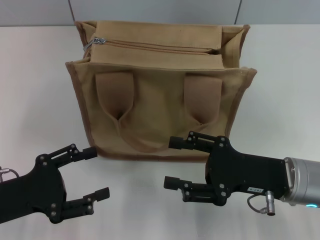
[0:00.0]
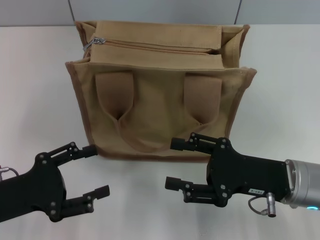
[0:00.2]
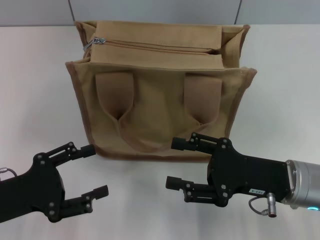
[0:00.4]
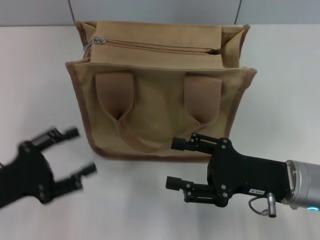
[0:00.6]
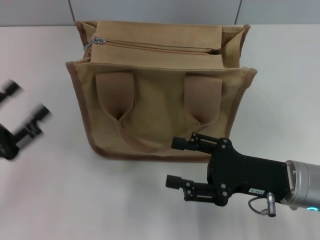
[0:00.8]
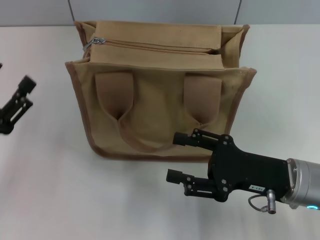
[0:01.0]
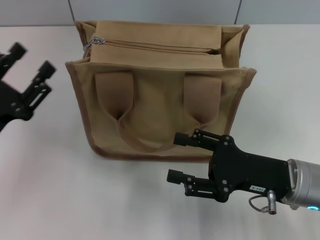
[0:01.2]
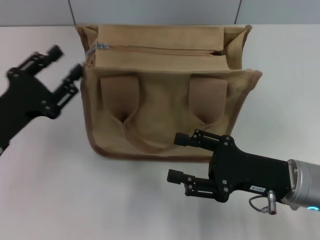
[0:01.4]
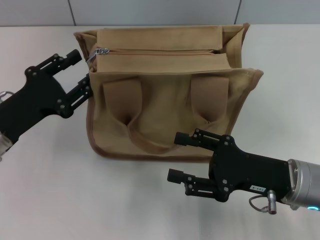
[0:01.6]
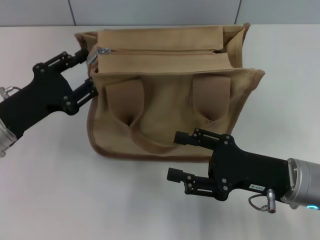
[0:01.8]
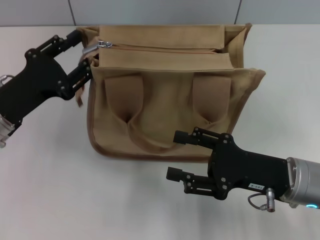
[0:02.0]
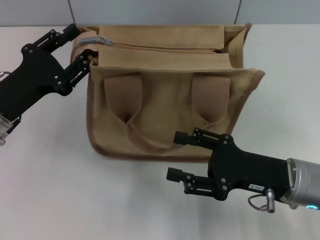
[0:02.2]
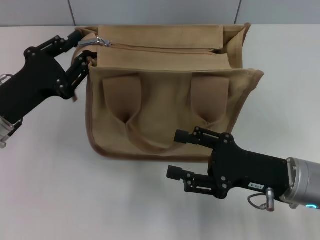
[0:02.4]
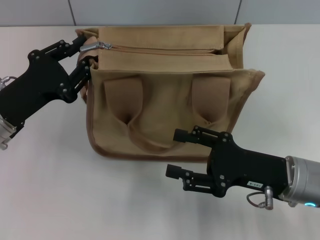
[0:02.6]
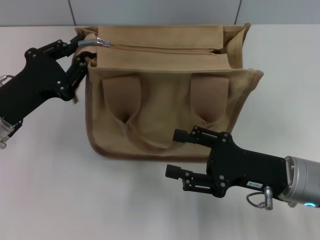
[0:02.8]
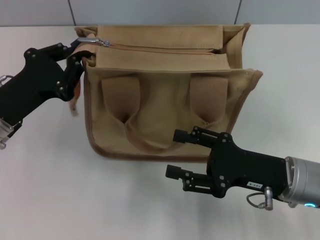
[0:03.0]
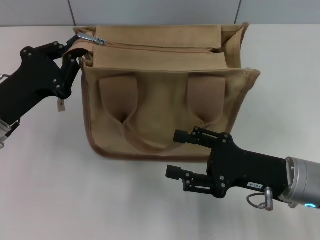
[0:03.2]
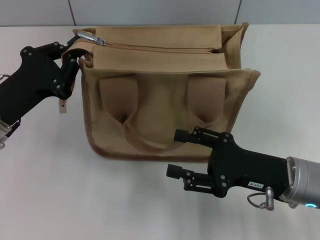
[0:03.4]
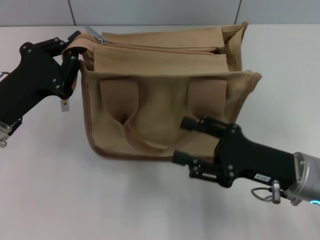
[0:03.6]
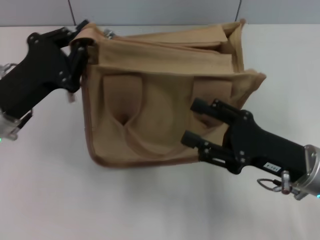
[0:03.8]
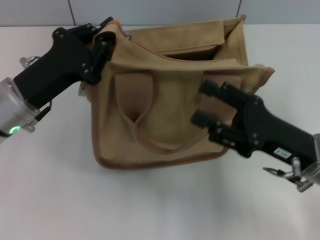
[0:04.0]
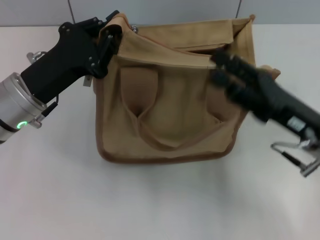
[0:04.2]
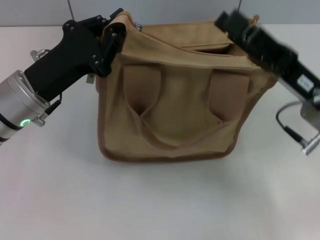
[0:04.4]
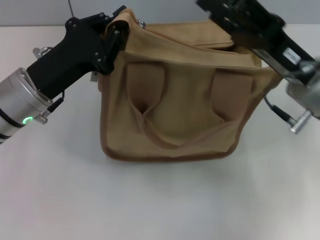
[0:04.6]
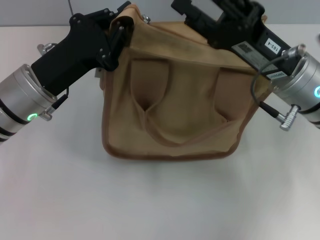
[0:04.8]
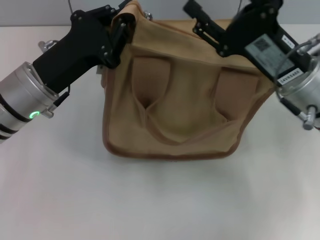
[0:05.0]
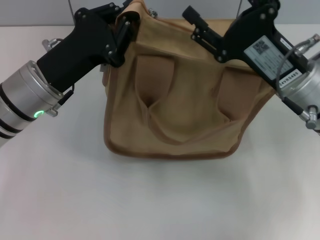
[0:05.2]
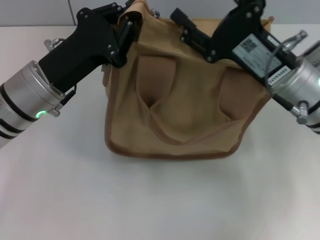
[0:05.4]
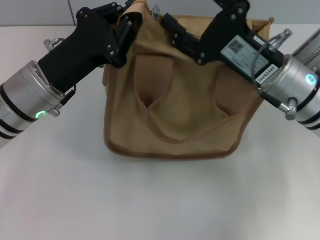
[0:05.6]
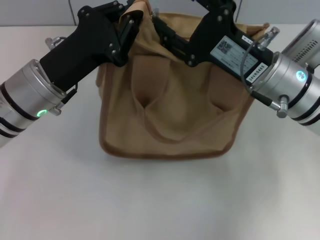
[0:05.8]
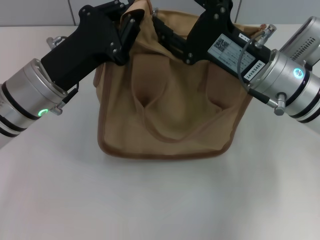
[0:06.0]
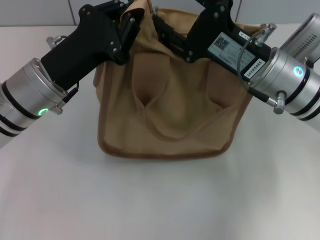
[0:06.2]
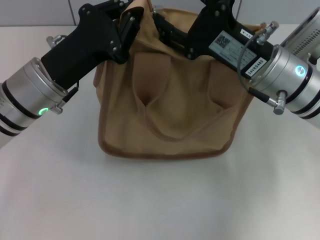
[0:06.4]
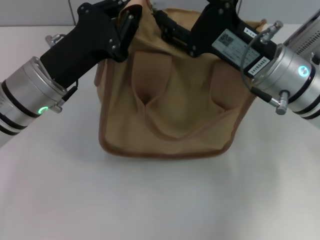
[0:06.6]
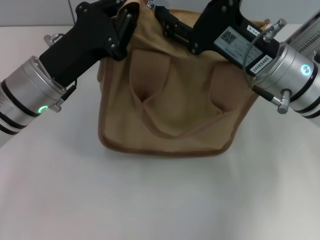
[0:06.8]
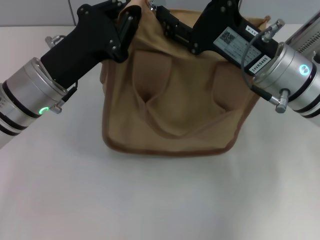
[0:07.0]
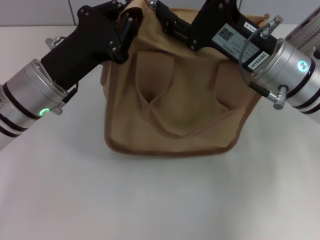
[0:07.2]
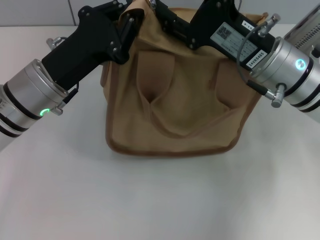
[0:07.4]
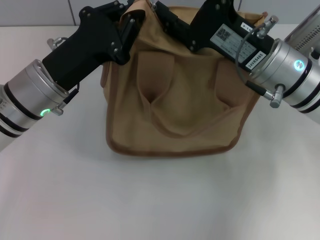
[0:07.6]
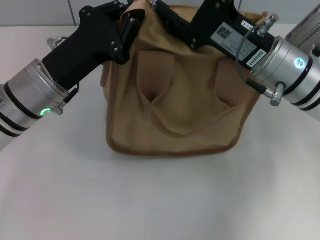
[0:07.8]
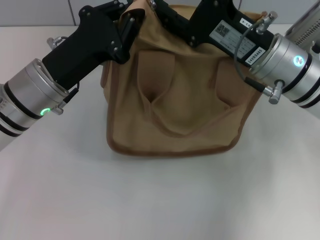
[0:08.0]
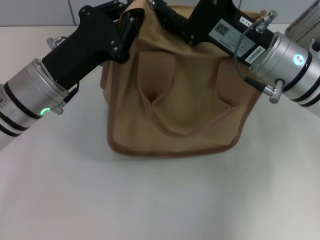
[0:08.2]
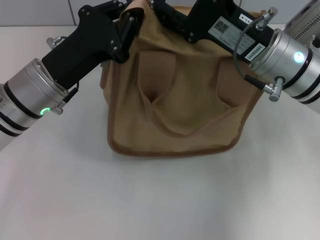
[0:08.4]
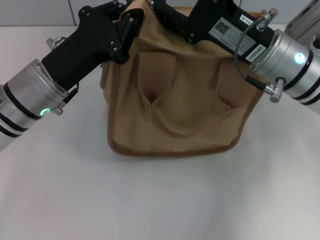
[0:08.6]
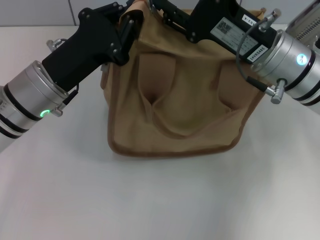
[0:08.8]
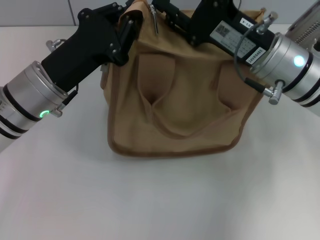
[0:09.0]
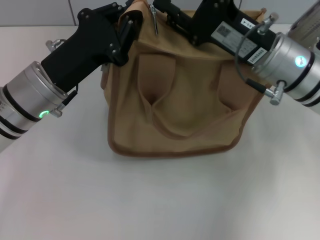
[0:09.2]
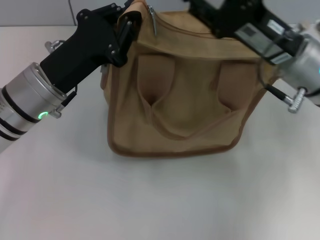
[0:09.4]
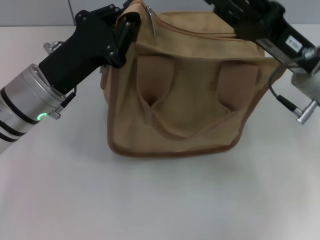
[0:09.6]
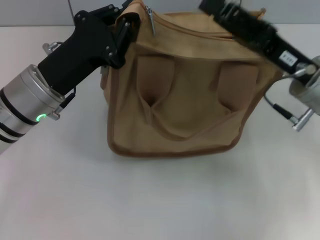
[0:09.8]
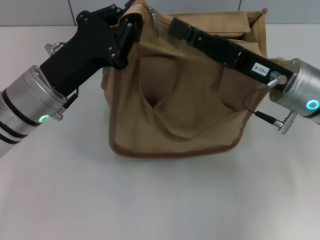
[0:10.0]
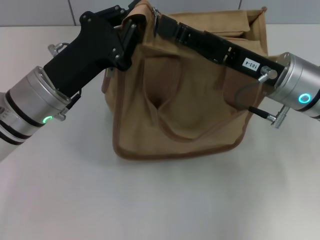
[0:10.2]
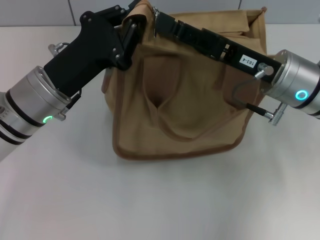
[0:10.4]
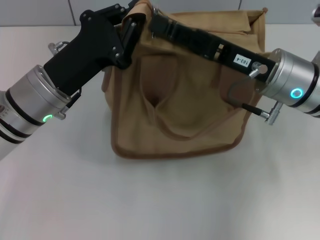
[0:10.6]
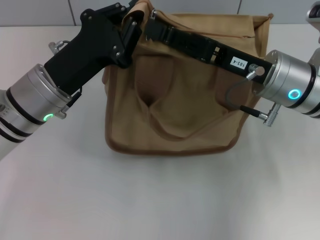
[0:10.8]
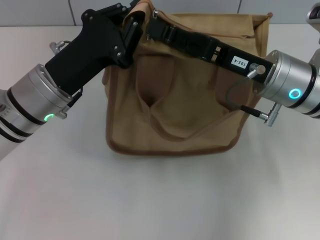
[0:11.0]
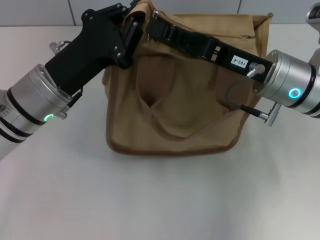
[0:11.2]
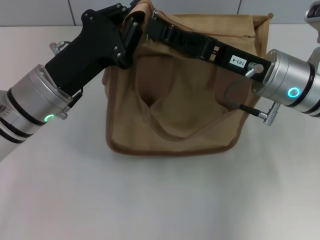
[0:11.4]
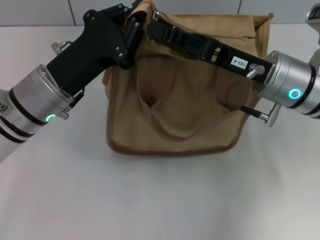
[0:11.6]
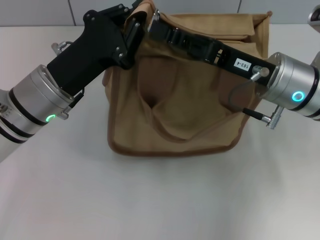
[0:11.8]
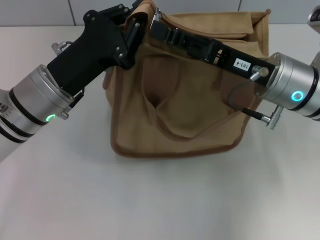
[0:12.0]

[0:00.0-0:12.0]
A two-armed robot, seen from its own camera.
0:00.0 to 0:01.6: The left gripper is displaced forward by about 10 cm.
0:01.6 to 0:03.0: The left gripper closes.
0:03.0 to 0:04.4: The right gripper heads upward, covering some 5 cm; the left gripper goes about 5 cm to the right.
0:04.4 to 0:06.0: The right gripper goes some 5 cm to the left.
0:06.0 to 0:09.0: The grippers move only a little.
0:10.4 to 0:12.0: The right gripper closes.

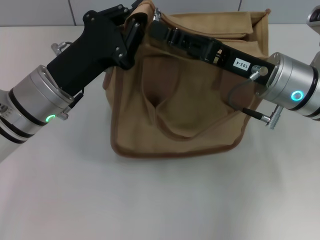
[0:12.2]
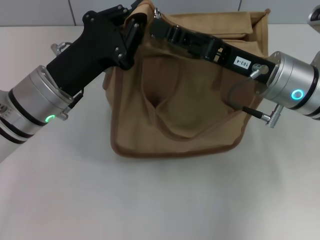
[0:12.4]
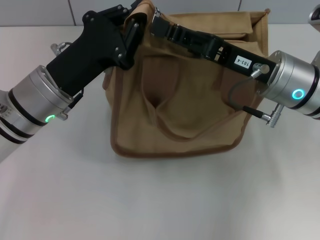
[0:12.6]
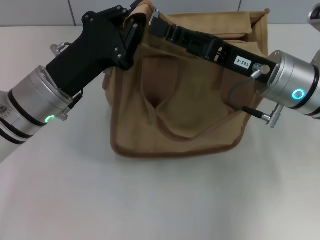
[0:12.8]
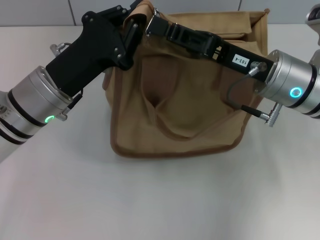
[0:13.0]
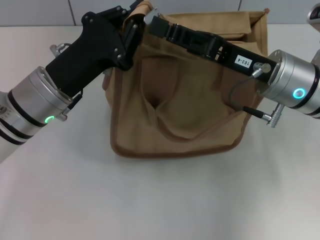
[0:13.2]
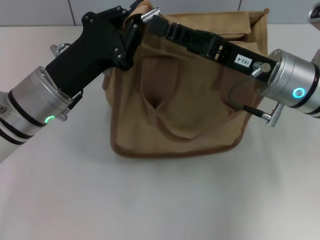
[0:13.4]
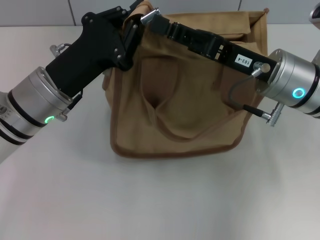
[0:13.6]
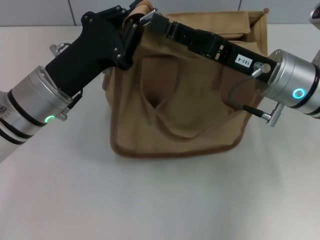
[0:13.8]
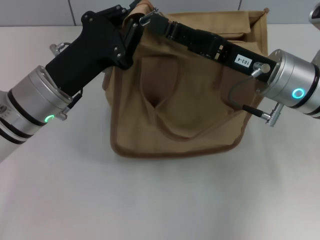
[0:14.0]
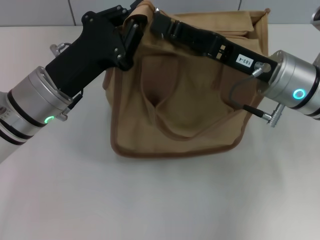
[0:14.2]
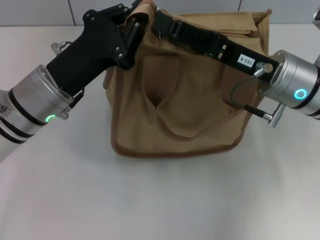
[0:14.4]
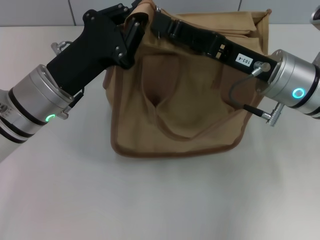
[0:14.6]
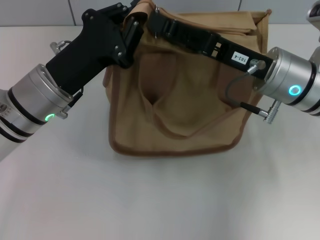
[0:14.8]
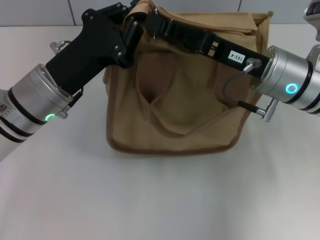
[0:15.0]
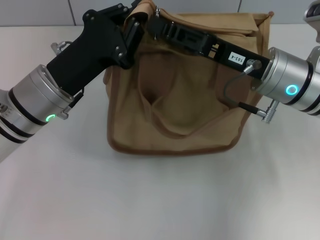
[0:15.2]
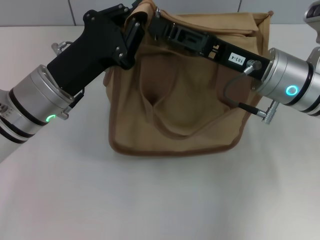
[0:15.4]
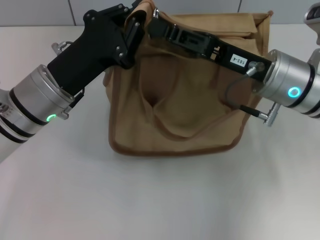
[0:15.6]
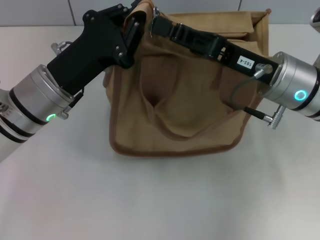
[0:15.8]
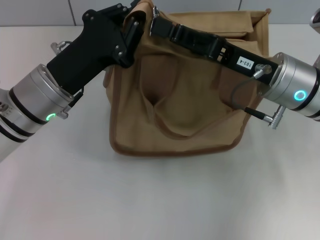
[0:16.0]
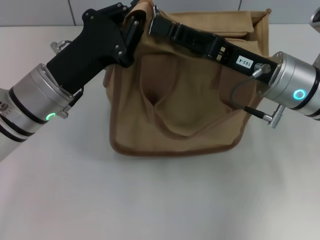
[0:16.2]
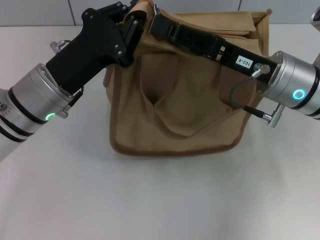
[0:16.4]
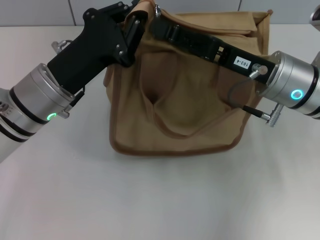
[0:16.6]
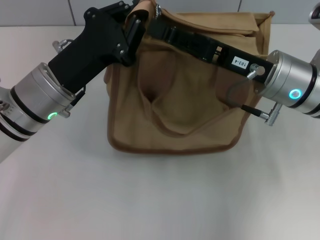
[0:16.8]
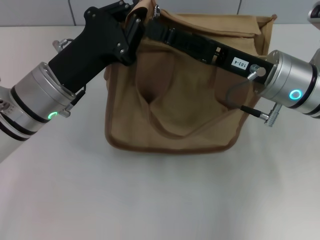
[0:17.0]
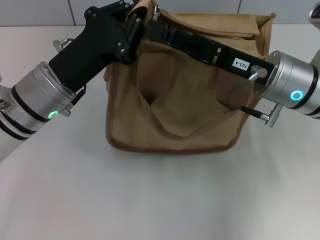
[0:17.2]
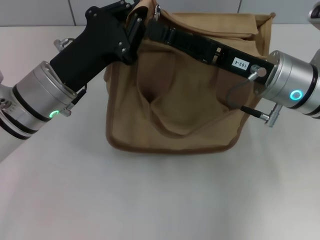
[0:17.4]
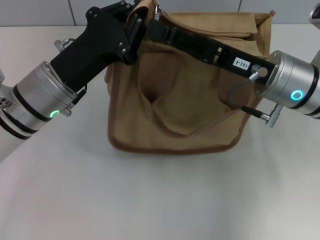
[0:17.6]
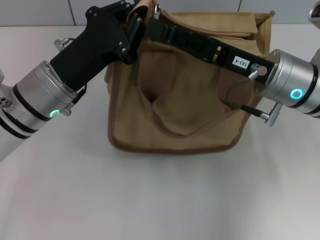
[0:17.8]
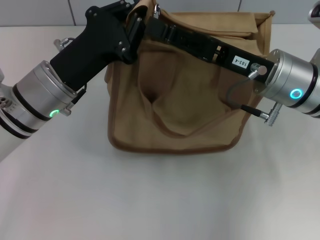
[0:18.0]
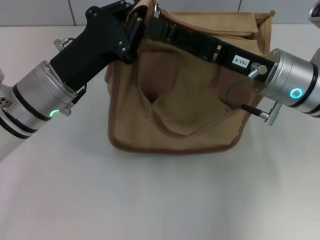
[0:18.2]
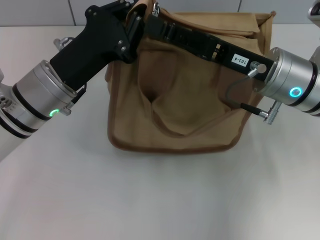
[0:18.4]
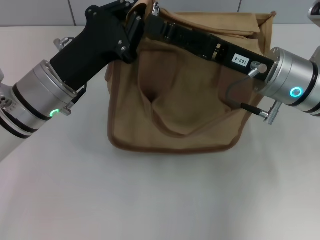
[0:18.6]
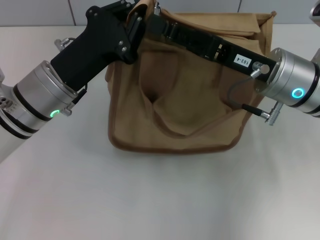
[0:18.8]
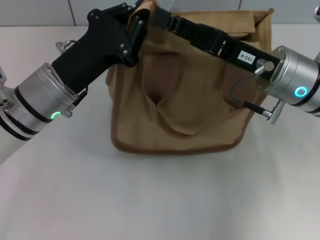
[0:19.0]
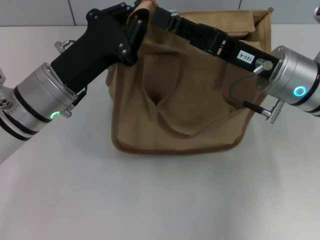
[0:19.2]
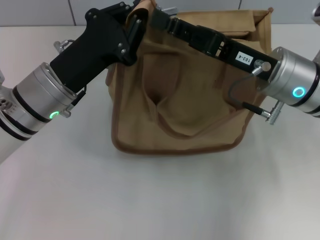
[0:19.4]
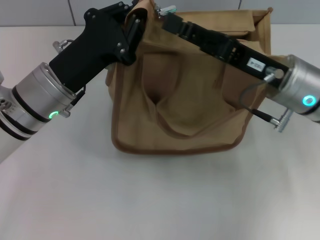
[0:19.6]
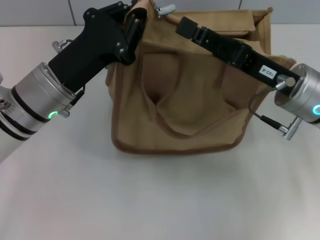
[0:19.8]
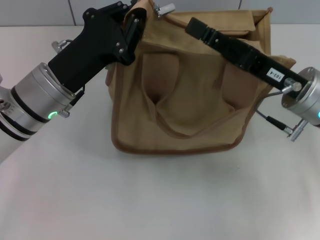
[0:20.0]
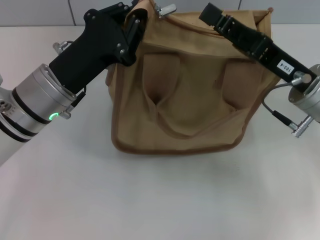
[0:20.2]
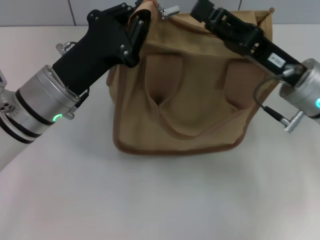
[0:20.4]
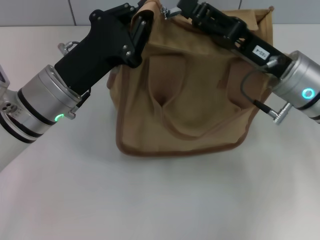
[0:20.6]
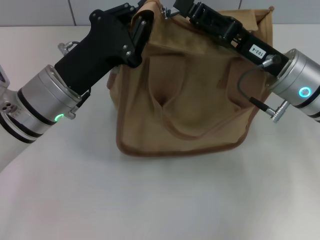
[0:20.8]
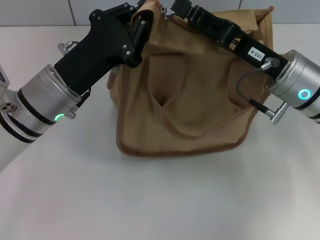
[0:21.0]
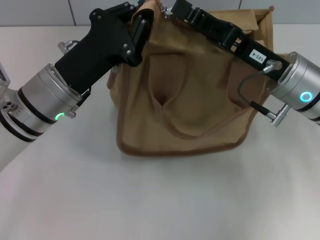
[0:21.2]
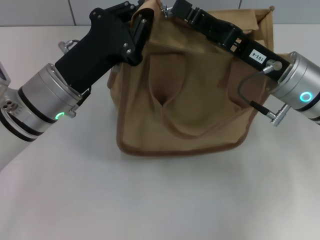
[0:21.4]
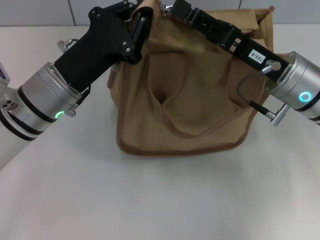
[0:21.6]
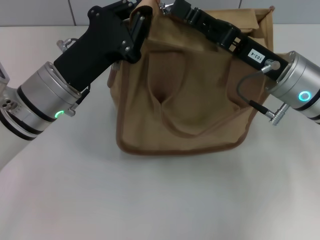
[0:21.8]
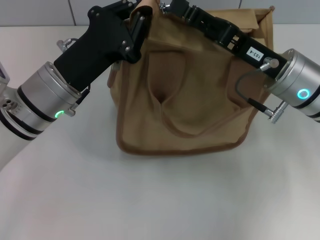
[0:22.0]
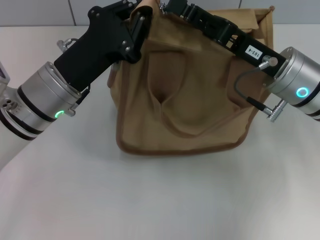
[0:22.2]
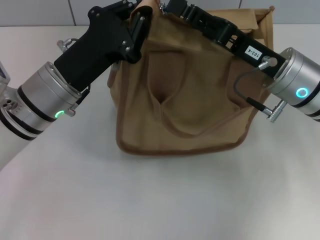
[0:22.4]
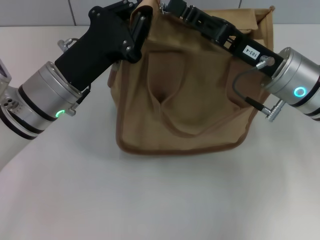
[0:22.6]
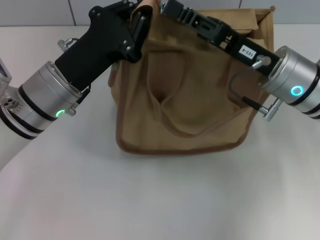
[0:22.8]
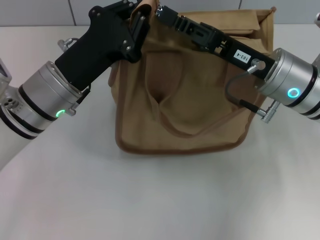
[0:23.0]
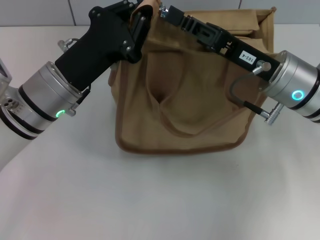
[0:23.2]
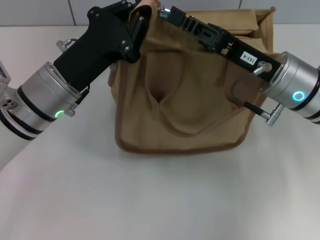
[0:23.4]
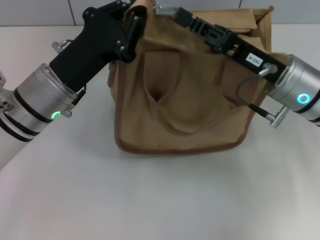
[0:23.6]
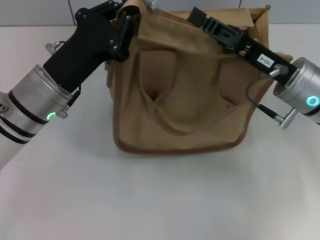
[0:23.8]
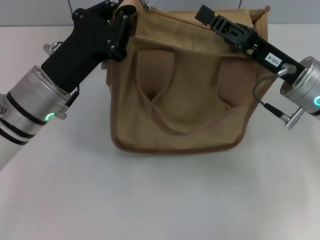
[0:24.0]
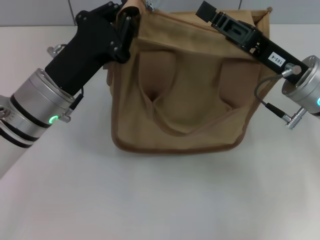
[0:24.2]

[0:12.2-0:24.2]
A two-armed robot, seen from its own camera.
0:12.2 to 0:15.2: Neither gripper changes place.
0:15.2 to 0:16.6: The right gripper closes and opens again.
0:16.6 to 0:18.2: Both grippers stay put.
0:18.2 to 0:21.2: There are only small adjustments of the grippers.
0:21.2 to 0:22.6: Both grippers stay put.
0:22.6 to 0:24.2: The grippers make only small movements.
